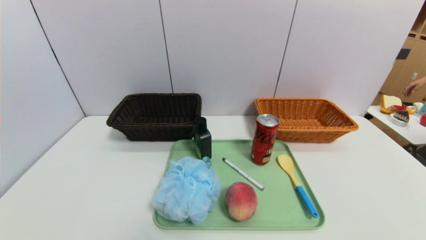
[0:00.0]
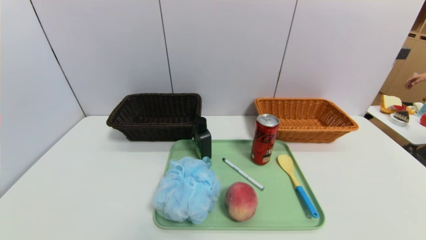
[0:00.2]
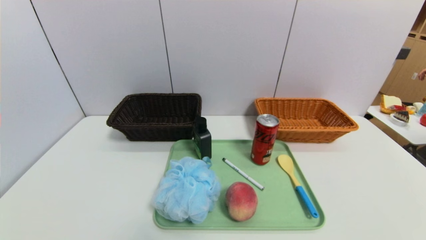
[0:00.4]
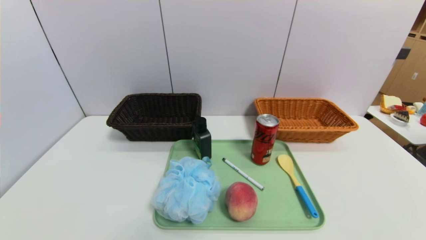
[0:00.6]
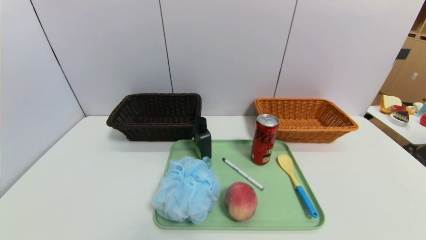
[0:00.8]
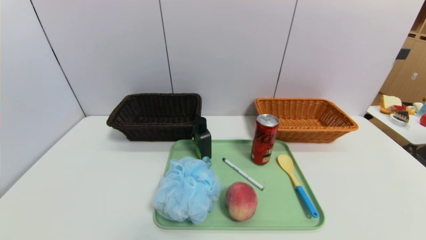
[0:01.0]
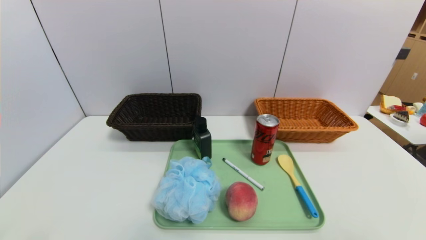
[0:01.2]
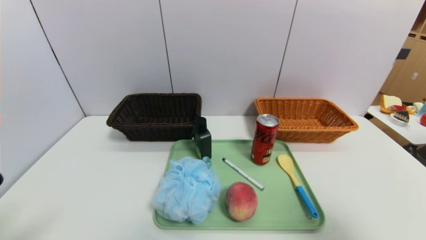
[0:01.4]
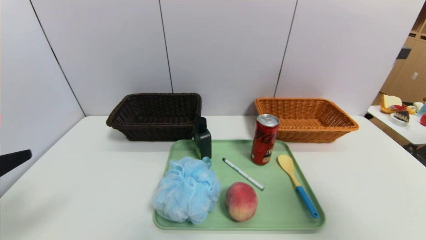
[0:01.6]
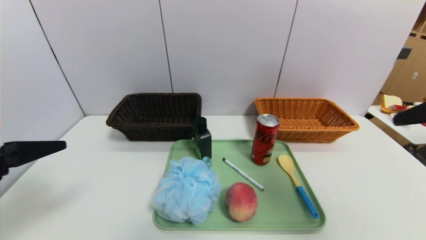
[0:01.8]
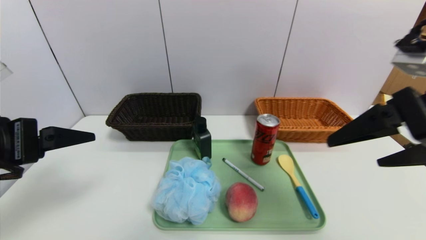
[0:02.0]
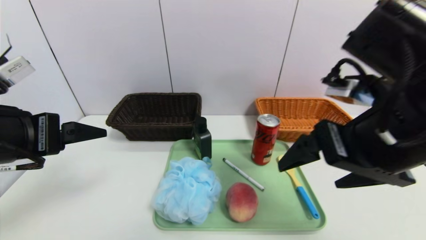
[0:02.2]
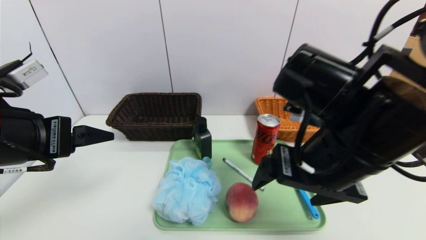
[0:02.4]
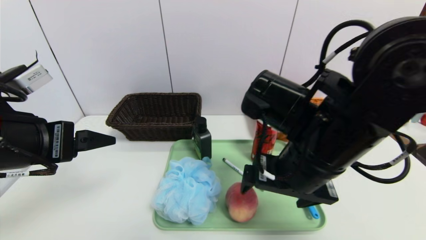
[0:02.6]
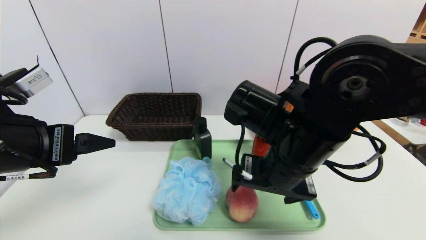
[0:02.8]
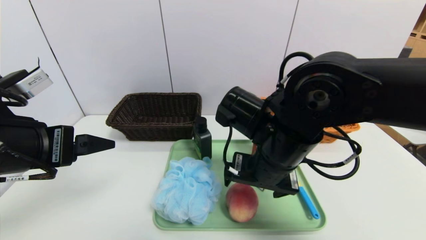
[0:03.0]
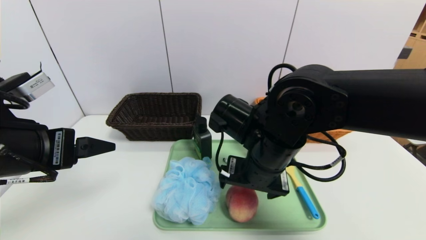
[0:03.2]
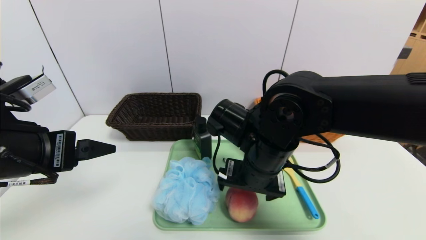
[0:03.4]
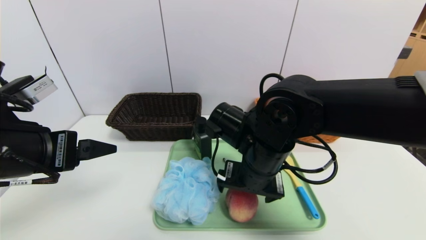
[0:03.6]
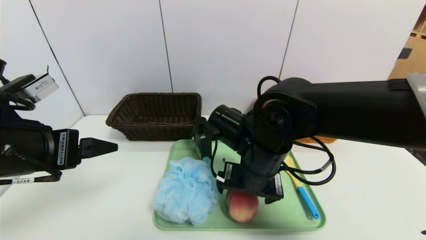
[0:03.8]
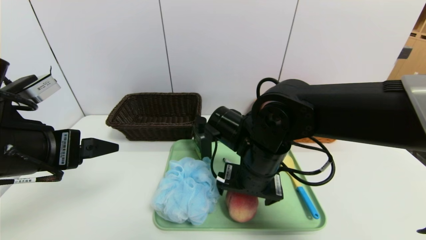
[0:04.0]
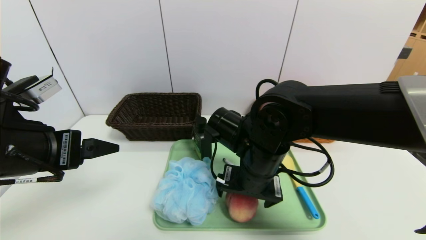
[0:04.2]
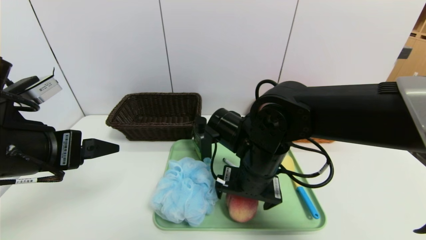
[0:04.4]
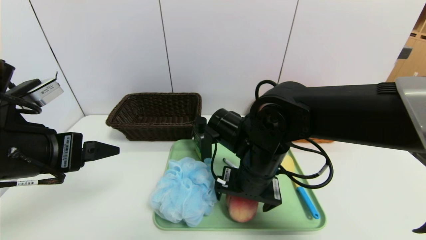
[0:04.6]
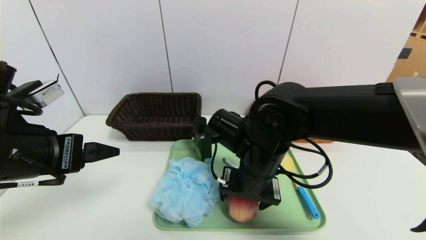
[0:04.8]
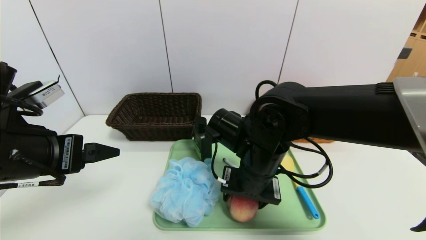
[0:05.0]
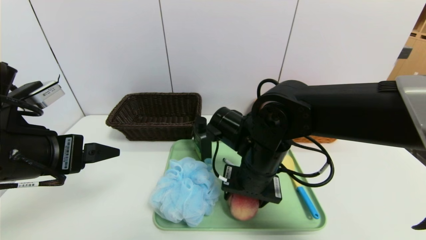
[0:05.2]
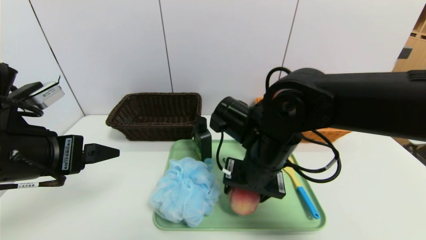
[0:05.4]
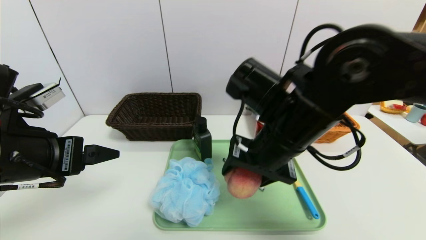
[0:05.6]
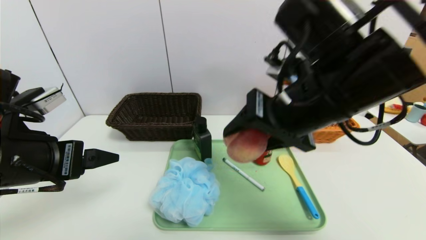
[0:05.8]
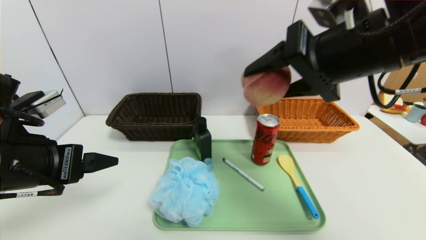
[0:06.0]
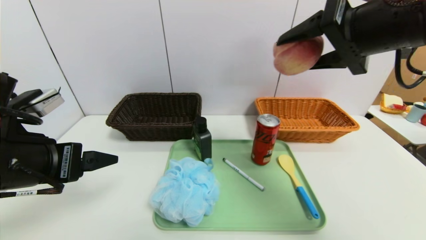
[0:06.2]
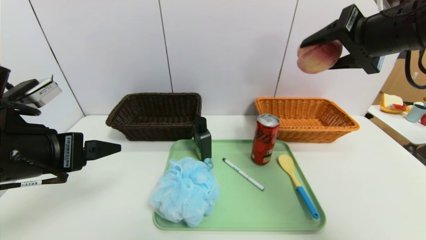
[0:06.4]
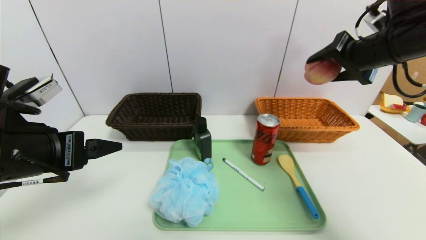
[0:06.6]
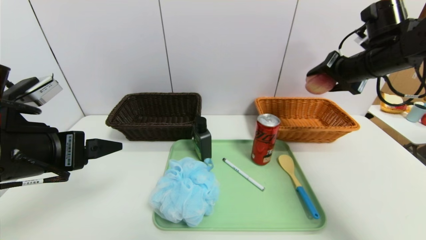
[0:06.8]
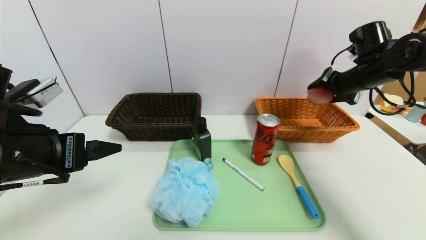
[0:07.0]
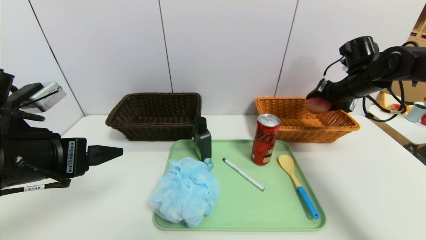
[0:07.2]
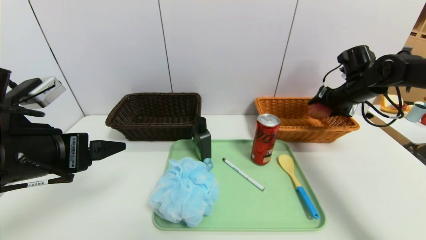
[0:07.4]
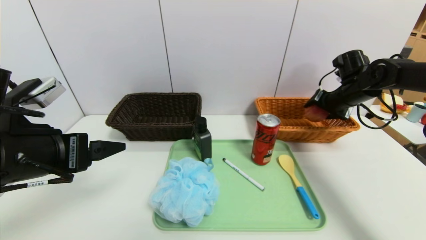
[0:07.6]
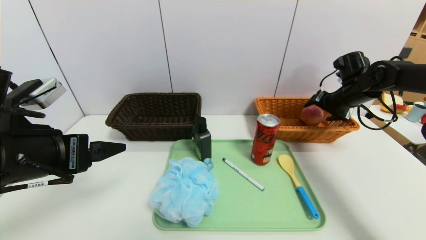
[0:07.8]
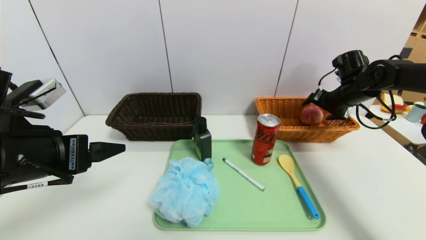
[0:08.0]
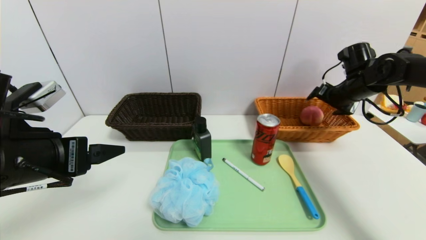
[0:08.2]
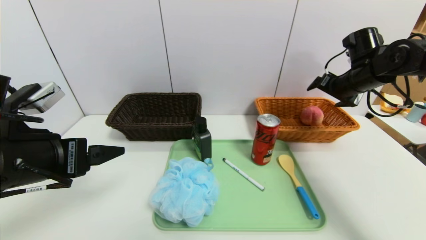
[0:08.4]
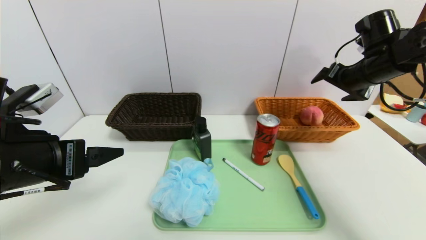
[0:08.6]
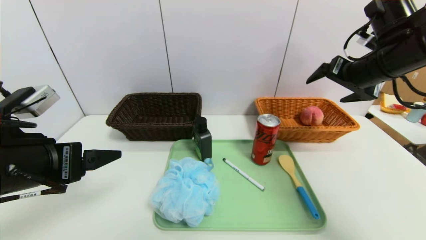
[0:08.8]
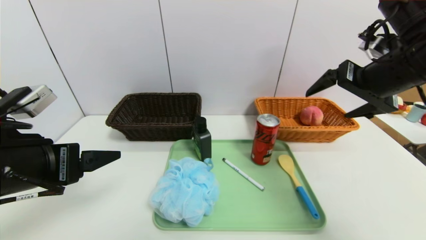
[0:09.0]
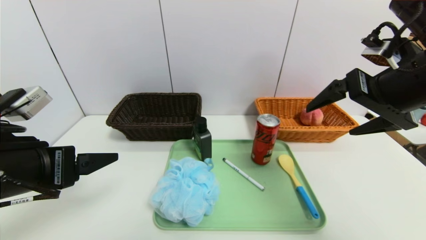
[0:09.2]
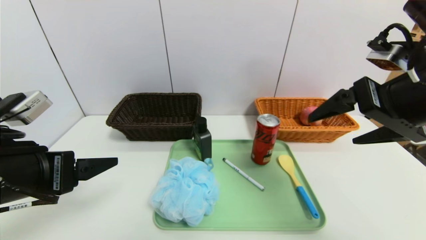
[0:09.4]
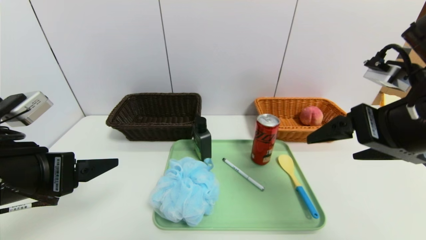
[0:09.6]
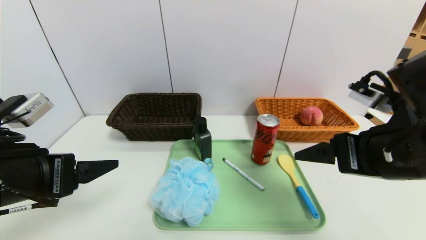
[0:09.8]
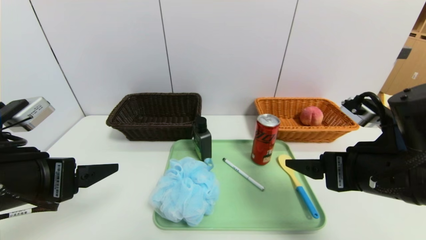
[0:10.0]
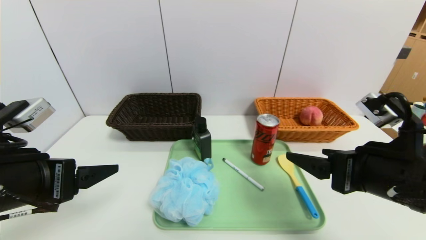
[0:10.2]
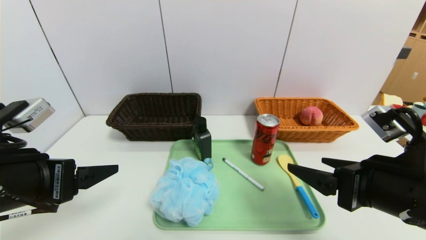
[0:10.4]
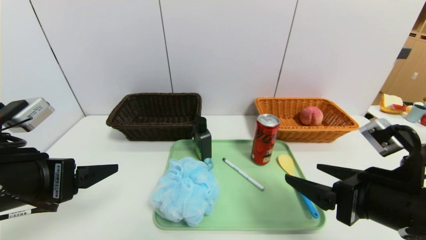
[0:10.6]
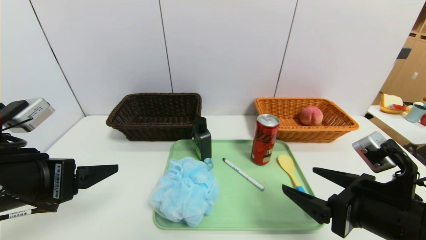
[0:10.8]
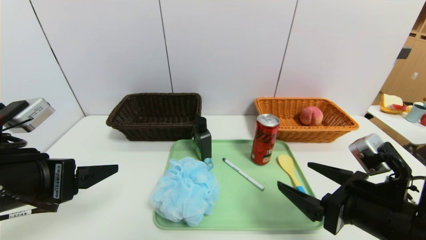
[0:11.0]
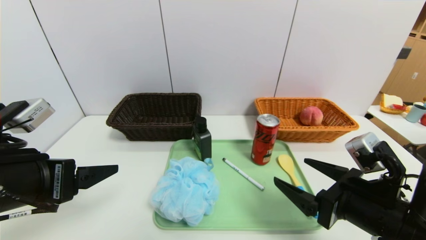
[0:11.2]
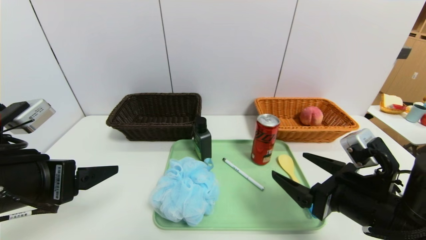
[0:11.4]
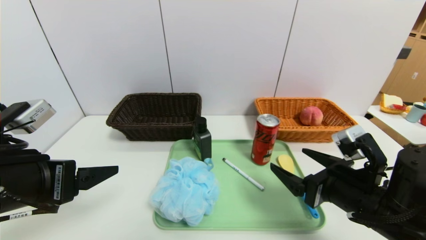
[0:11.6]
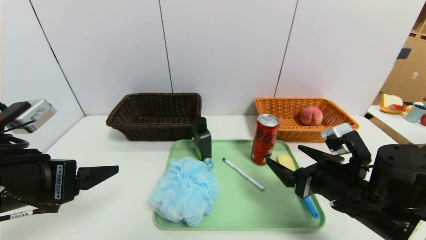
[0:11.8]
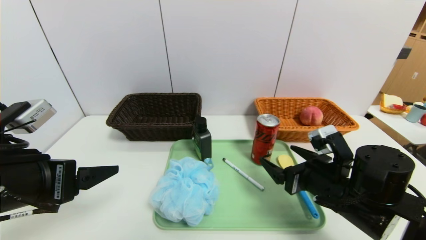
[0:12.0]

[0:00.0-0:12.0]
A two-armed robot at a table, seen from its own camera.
Task of the whole recording: place the food in the right basket with the right gripper, and place the non food items in the left basket with the left gripper.
Step, 0:00.0 to 0:08.4: Grasp the peach and put it in the right basket.
0:00.0 to 0:01.6: The left gripper shifts about 20 cm upward and forward, while the right gripper is displaced upward by about 30 cm.
0:01.6 to 0:03.0: The right gripper heads to the left, downward and forward, covering about 30 cm; the left gripper goes some 10 cm forward and to the right.
0:04.4 to 0:06.0: The right gripper heads upward and to the right, covering roughly 20 cm, and closes up.
0:06.0 to 0:07.6: The right gripper travels forward, to the right and downward by roughly 30 cm.
0:07.6 to 0:09.0: The right gripper heads backward, upward and to the left, covering some 25 cm.
0:09.0 to 0:10.4: The right gripper is displaced downward and backward by approximately 15 cm.
0:10.4 to 0:12.0: The right gripper travels downward and forward by roughly 10 cm.

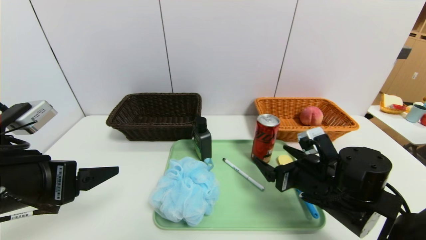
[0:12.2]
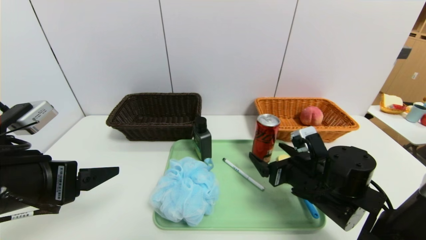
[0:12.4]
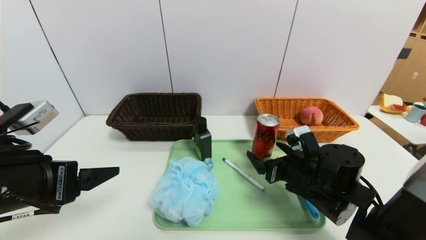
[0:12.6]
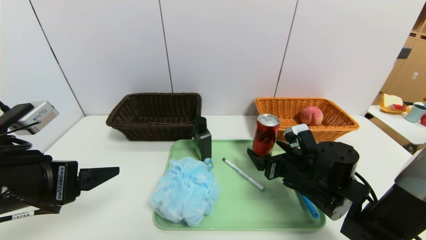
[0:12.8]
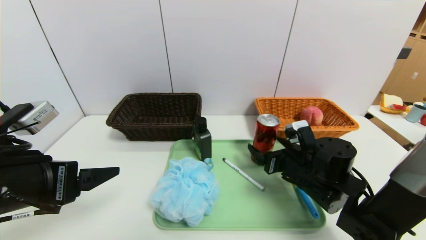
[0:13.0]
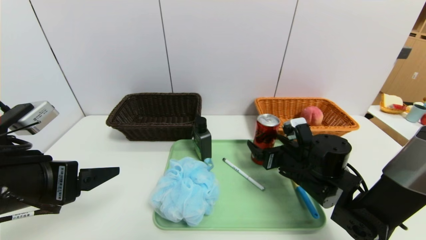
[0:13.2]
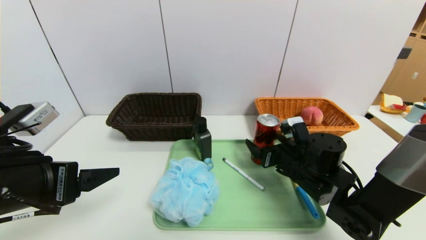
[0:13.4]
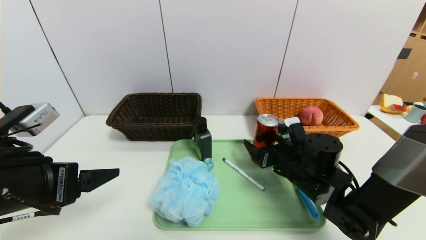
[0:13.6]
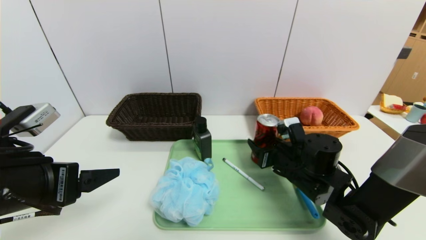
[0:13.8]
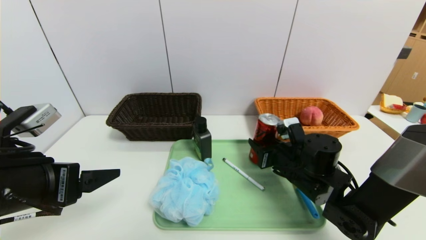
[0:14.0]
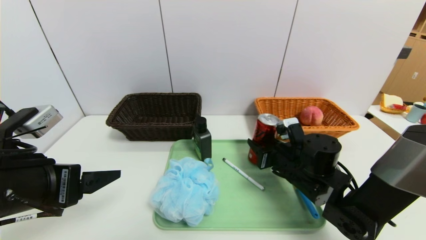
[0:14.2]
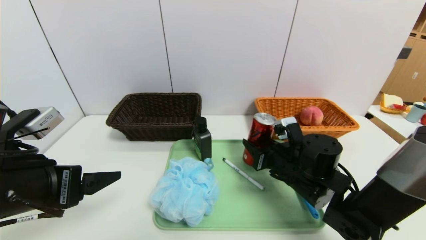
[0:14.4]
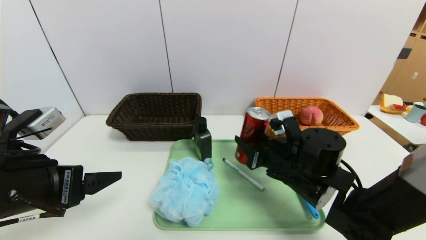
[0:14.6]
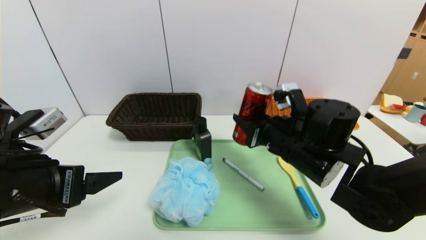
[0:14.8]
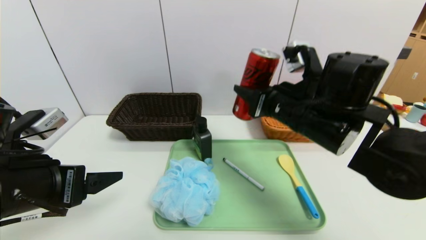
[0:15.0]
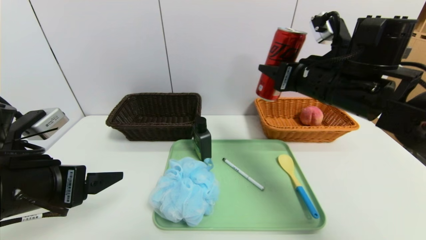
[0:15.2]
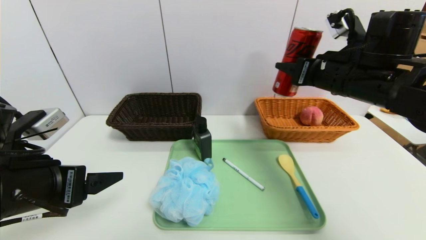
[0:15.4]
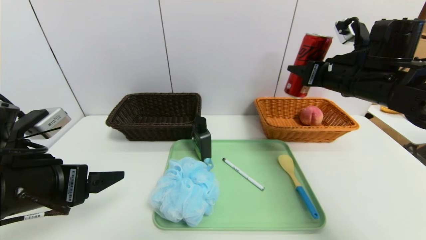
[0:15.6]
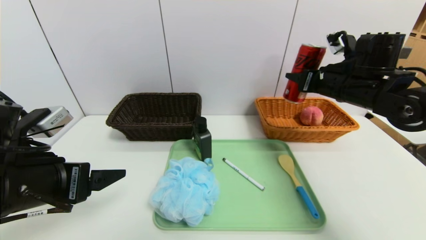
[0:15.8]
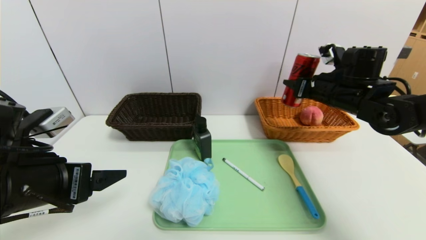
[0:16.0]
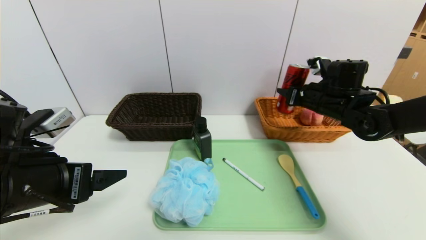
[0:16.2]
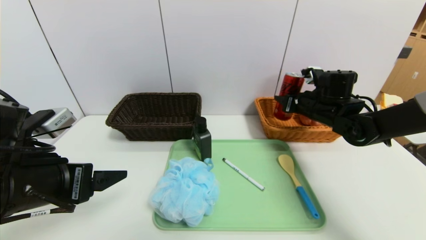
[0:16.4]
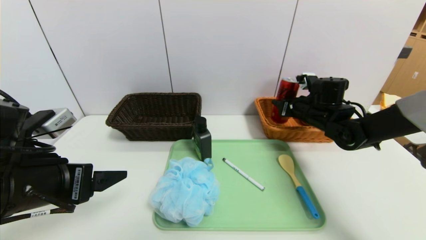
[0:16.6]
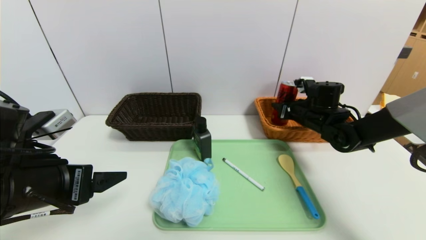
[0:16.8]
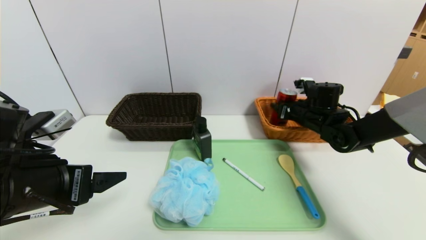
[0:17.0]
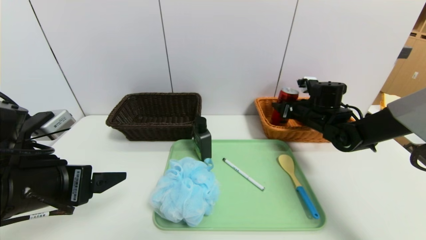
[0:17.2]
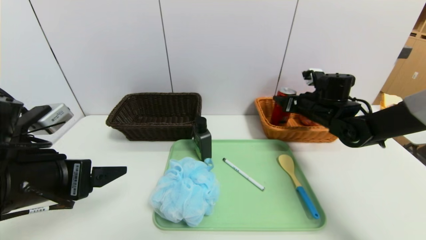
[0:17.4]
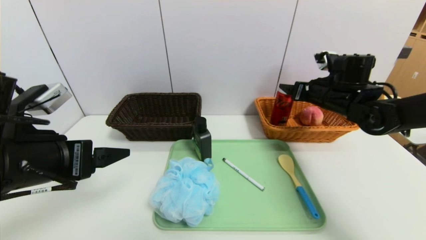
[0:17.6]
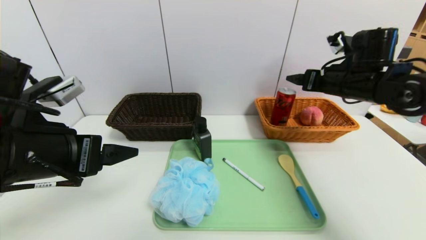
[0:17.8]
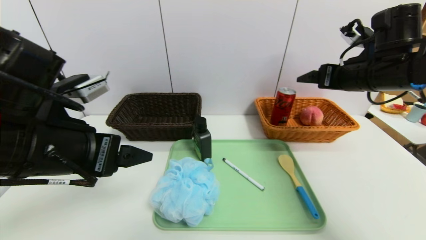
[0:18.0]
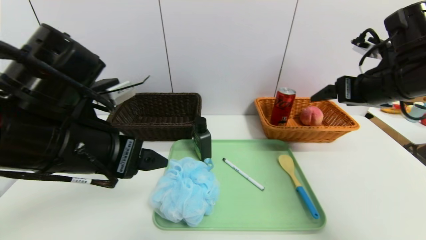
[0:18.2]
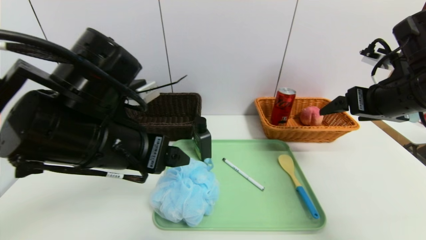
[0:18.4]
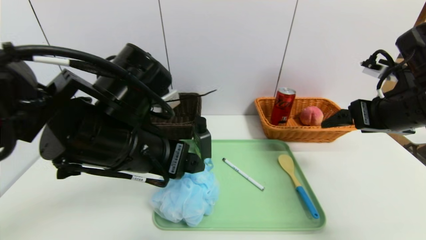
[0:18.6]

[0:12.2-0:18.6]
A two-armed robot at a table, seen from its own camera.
Task of the whole recording: place the food in the right basket with the right gripper, and place the non food items in the left basket with the left gripper.
Step, 0:12.2 to 0:17.8: Grasp the canned cola and put it in the right basket.
0:12.2 to 0:13.8: The right gripper goes approximately 5 cm forward, and closes up.
0:13.8 to 0:15.4: The right gripper is displaced upward by some 20 cm.
0:15.4 to 0:17.0: The right gripper is displaced downward and forward by roughly 20 cm.
0:17.0 to 0:18.6: The left gripper shifts approximately 15 cm to the right, while the right gripper travels backward and upward by about 25 cm.
